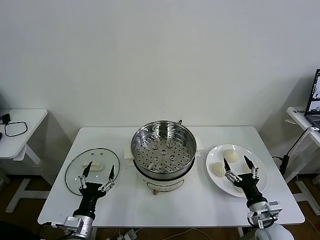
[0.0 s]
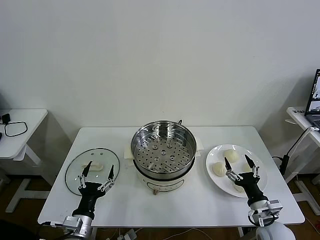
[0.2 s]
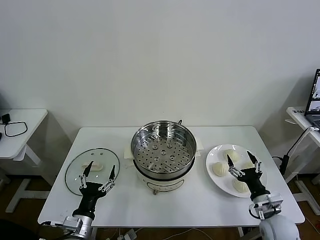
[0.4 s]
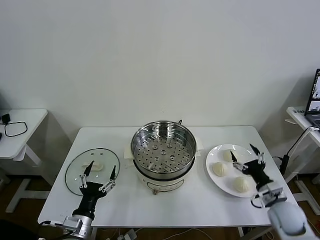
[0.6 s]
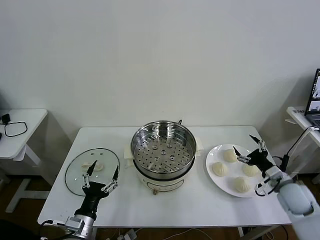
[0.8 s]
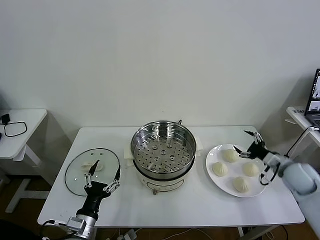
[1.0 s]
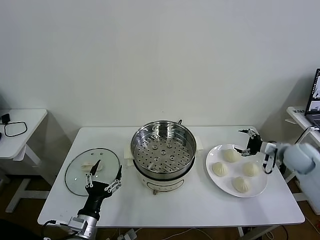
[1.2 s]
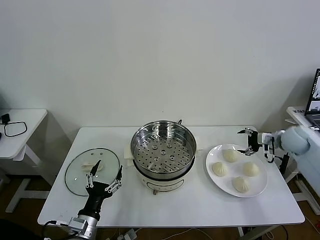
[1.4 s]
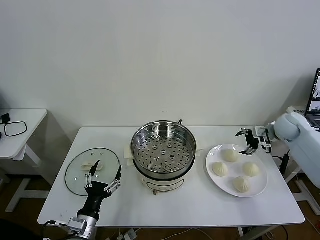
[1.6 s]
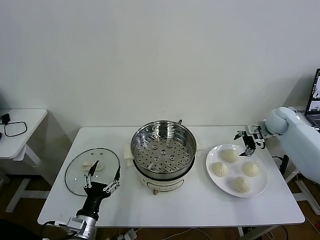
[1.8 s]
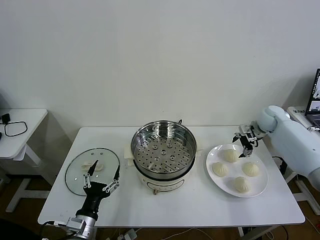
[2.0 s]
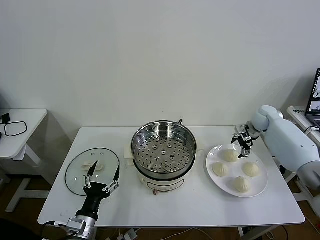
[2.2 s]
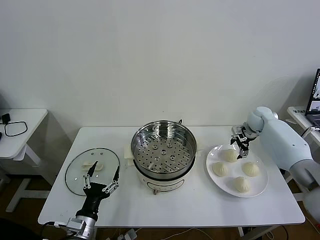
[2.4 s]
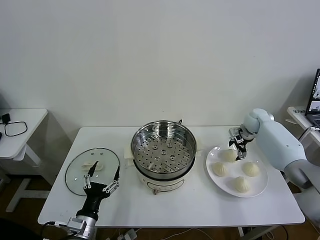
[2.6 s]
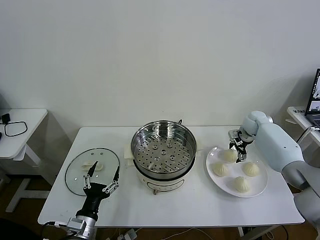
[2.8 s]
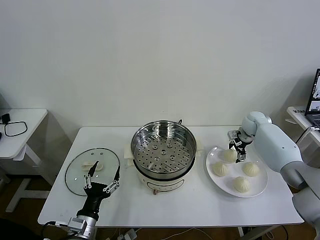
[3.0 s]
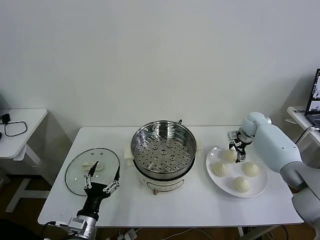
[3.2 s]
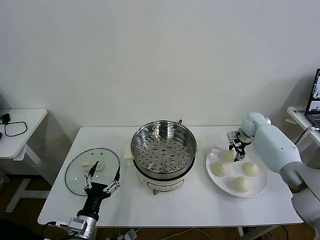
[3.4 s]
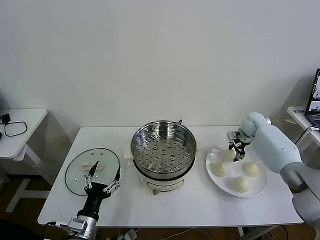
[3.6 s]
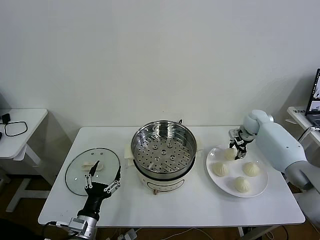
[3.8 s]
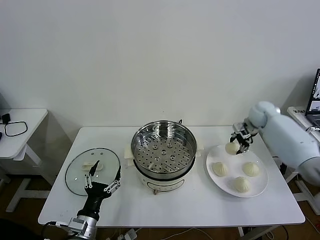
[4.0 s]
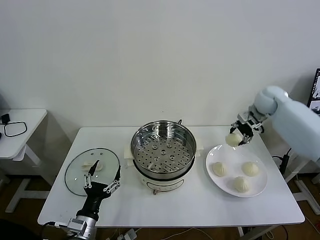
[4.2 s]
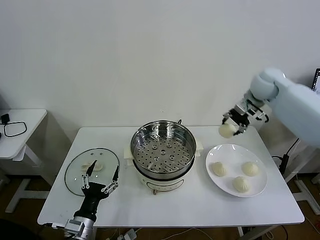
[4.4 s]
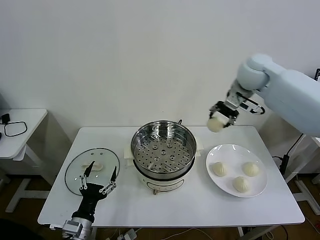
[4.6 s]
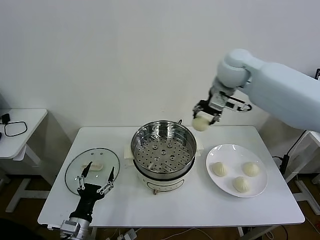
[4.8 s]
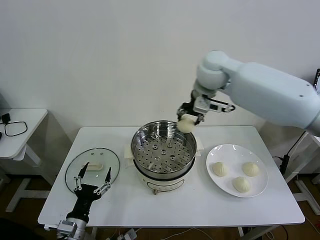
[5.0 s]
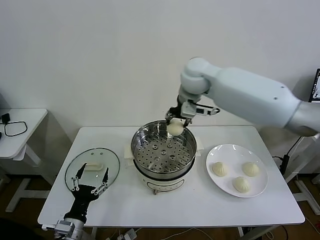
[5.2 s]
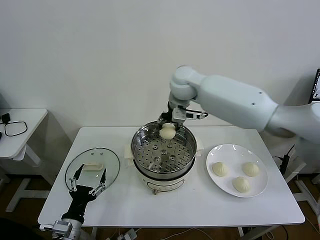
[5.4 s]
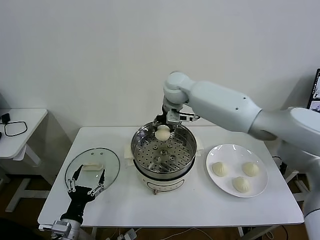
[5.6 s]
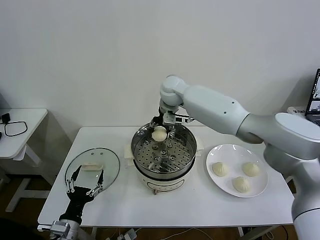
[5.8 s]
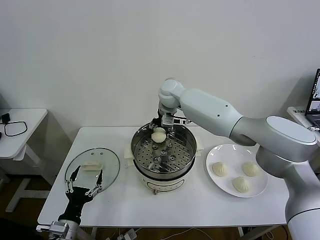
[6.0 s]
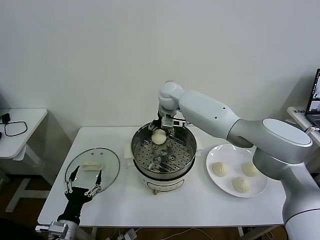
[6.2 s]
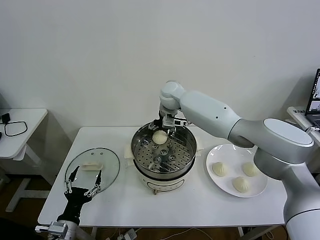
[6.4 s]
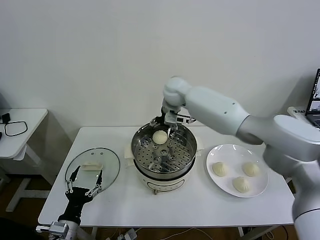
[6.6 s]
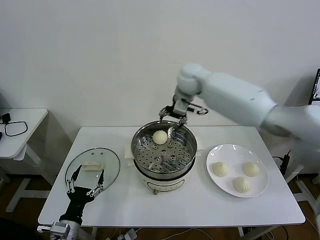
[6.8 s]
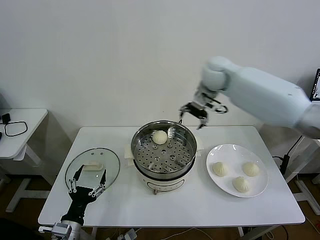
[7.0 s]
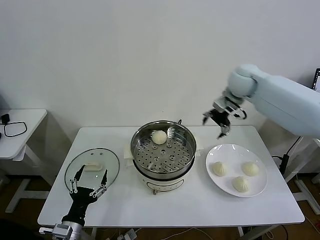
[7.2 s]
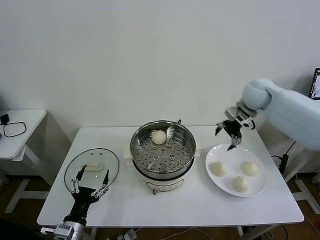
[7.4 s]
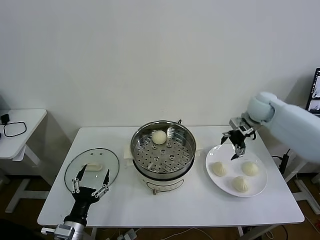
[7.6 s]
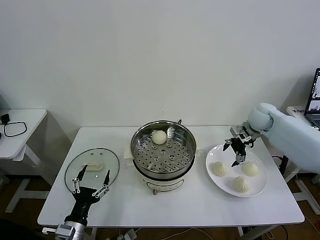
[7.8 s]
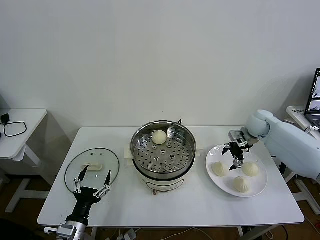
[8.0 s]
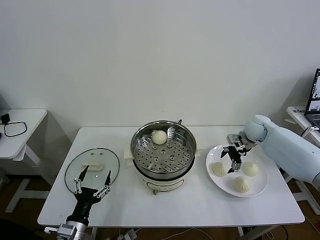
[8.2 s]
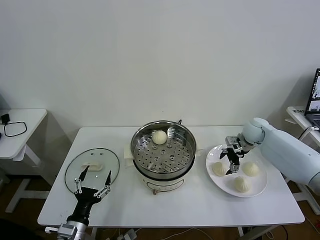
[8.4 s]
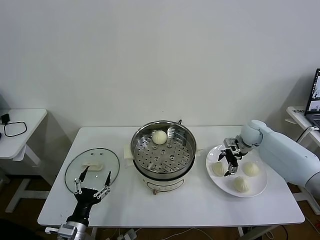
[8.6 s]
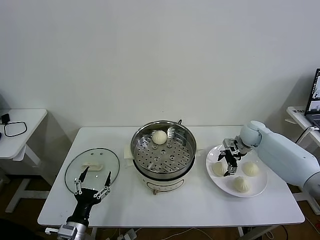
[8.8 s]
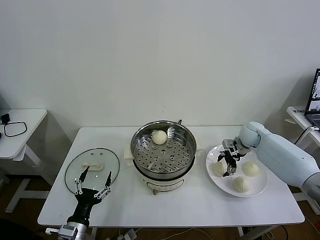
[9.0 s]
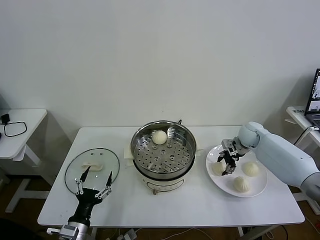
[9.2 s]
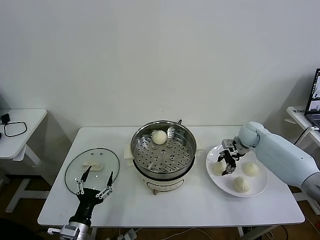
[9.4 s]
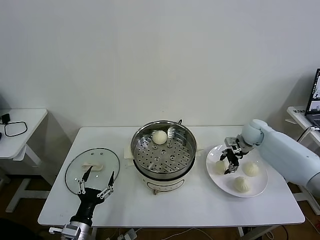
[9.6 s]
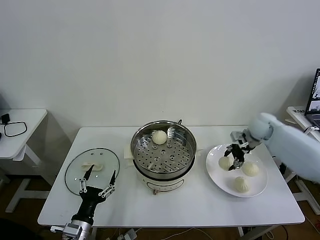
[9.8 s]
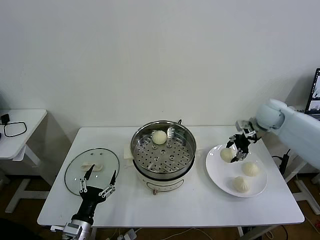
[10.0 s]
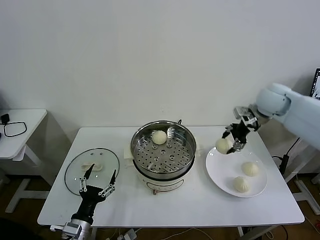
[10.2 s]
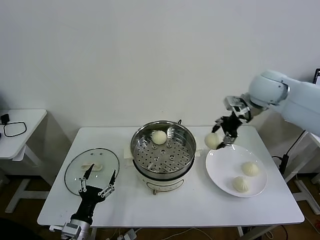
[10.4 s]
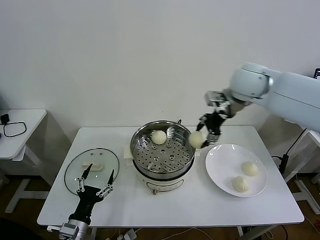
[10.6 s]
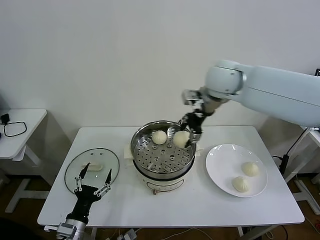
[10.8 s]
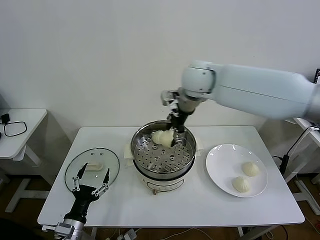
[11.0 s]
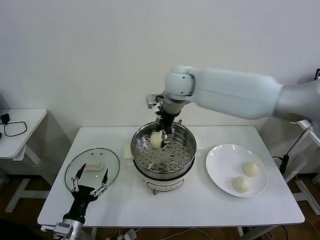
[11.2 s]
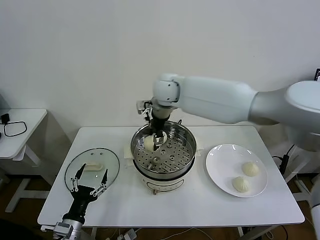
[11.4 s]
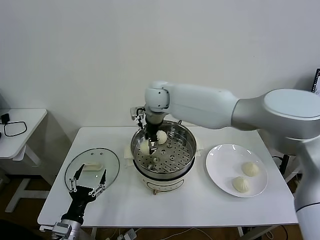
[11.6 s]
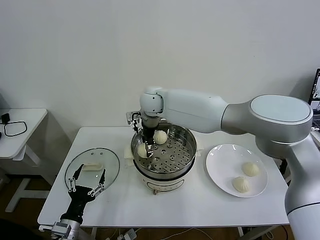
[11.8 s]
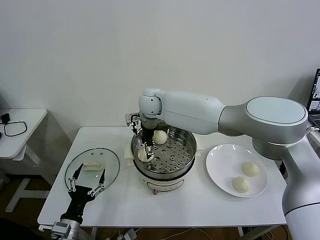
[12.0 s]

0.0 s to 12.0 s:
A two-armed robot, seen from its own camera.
Task of the whole recording: take steamed baozi put them in steamer then cover it.
Step, 0.0 to 3.4 s: Grasp the baozi in the plate with right gripper.
Step, 3.6 to 6.2 s: Place the baozi on the steamer with right gripper.
Step, 6.6 to 9.2 s: Grasp the baozi in the plate with right gripper.
1.6 to 3.0 s: The right gripper shifts roughly 10 cm forward, downward and to the left.
3.0 to 4.4 s: The right gripper goes roughly 20 cm upward, and closes up.
4.4 to 6.0 s: The right gripper shifts about 30 cm to the left.
6.0 to 7.6 s: The right gripper goes some 30 cm to the right, and opens.
7.6 to 9.0 s: The right gripper shifts some 15 cm downward.
9.0 to 10.4 s: The right gripper shifts some 25 cm upward, and closes.
10.4 to 12.0 s: The right gripper moves to the left, about 30 cm, and opens.

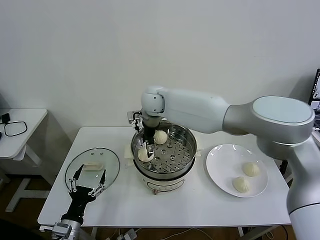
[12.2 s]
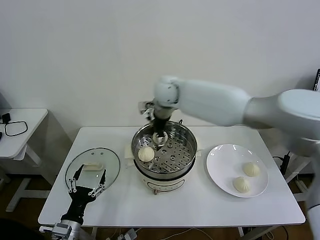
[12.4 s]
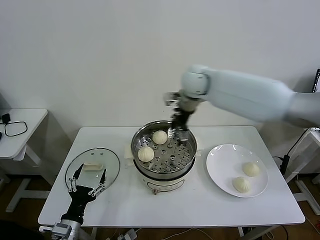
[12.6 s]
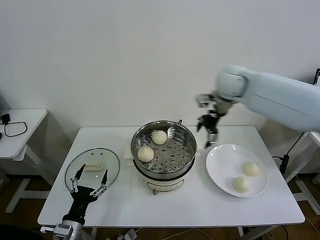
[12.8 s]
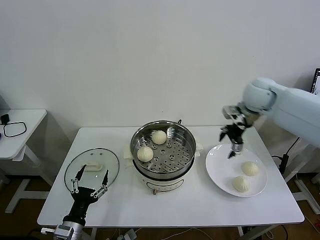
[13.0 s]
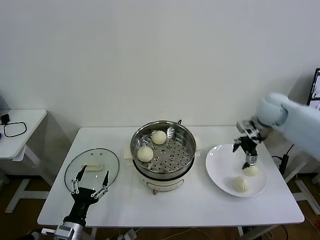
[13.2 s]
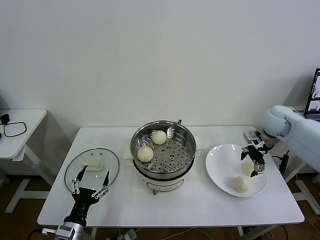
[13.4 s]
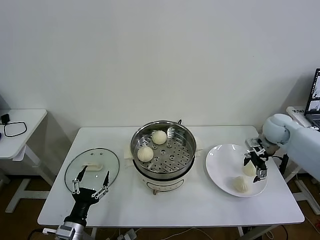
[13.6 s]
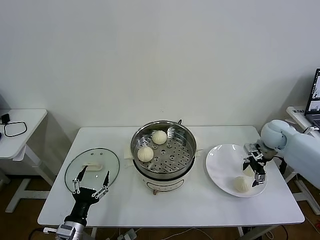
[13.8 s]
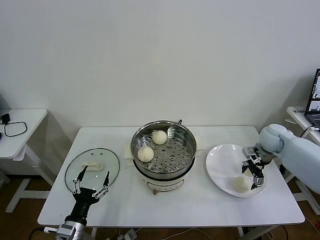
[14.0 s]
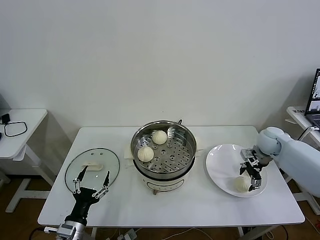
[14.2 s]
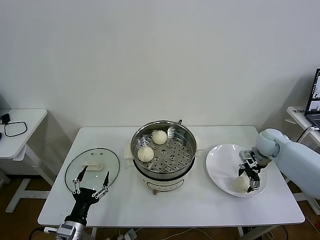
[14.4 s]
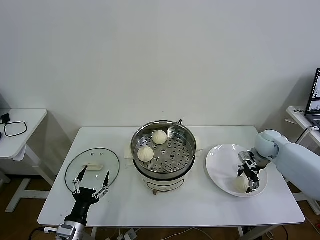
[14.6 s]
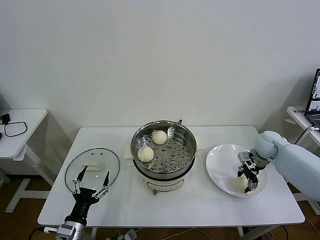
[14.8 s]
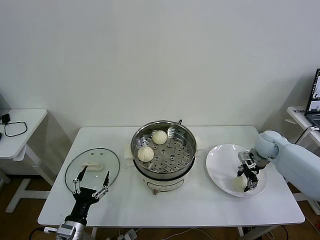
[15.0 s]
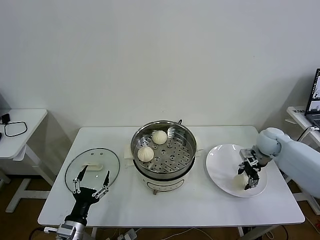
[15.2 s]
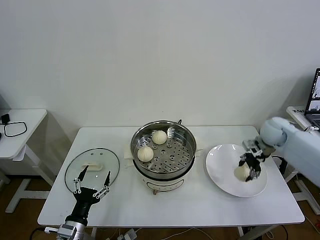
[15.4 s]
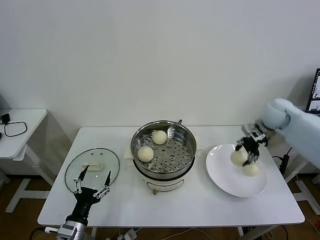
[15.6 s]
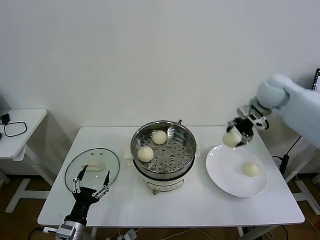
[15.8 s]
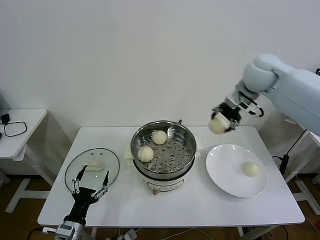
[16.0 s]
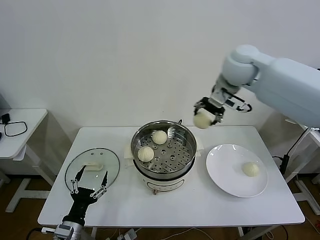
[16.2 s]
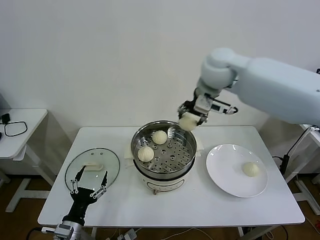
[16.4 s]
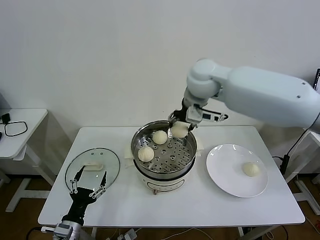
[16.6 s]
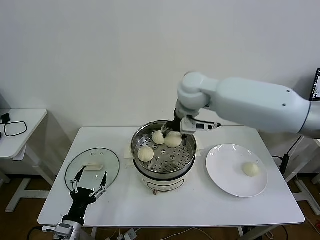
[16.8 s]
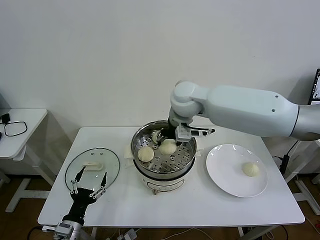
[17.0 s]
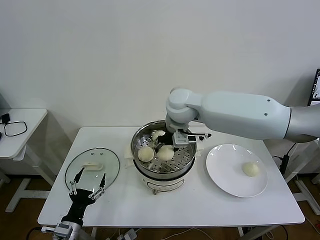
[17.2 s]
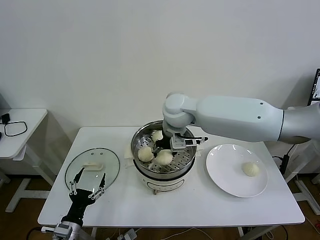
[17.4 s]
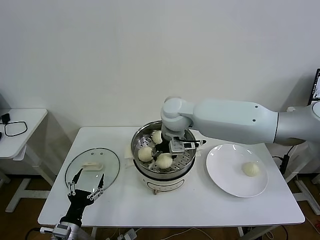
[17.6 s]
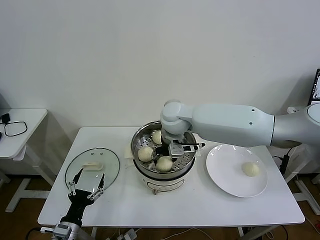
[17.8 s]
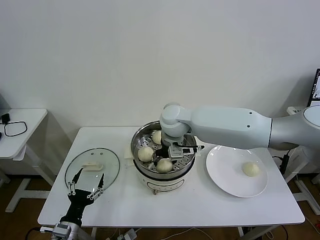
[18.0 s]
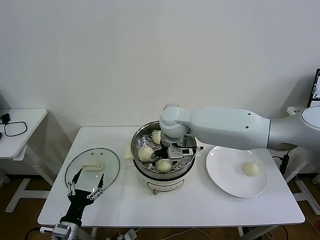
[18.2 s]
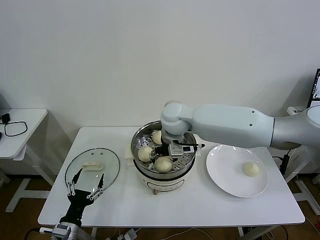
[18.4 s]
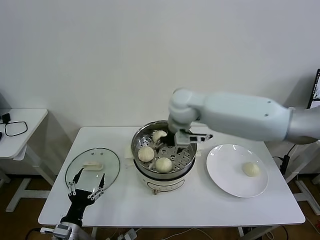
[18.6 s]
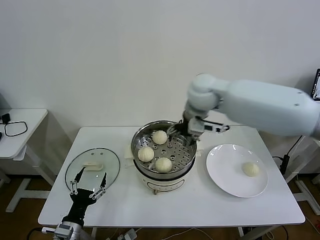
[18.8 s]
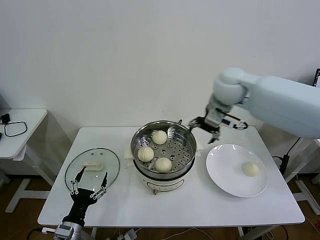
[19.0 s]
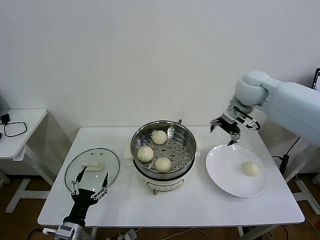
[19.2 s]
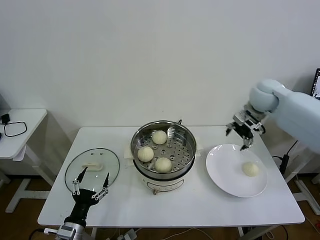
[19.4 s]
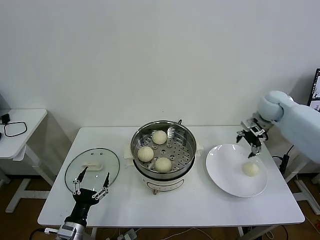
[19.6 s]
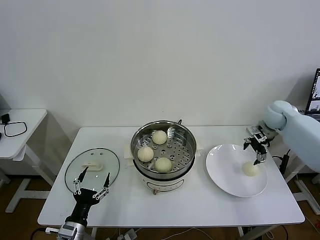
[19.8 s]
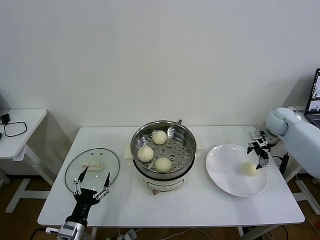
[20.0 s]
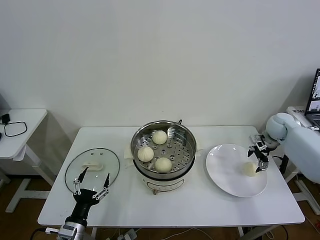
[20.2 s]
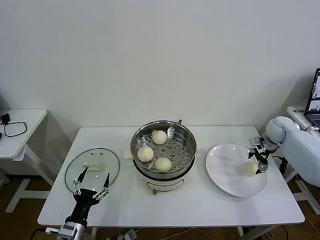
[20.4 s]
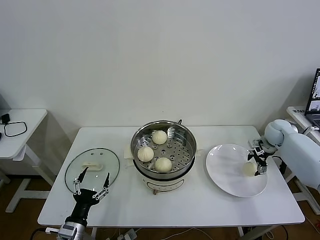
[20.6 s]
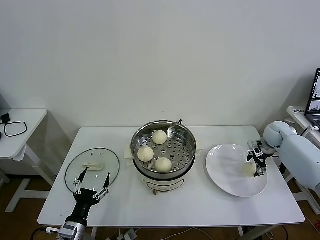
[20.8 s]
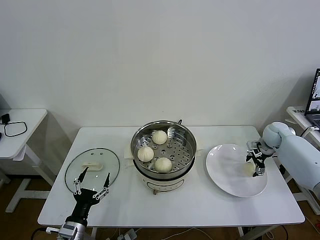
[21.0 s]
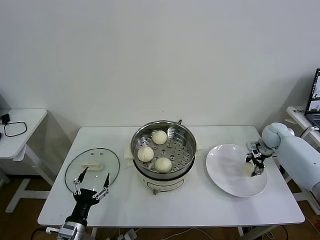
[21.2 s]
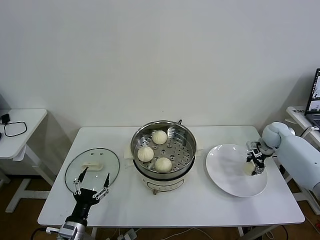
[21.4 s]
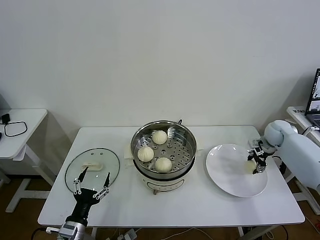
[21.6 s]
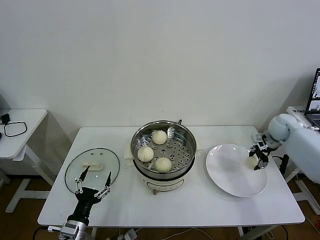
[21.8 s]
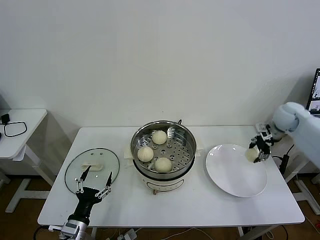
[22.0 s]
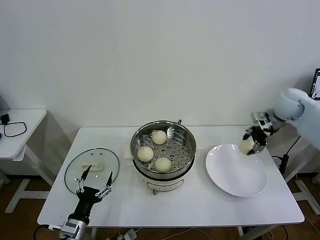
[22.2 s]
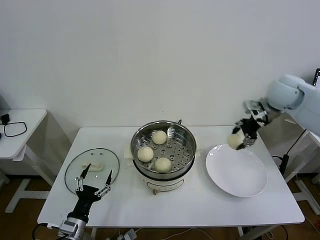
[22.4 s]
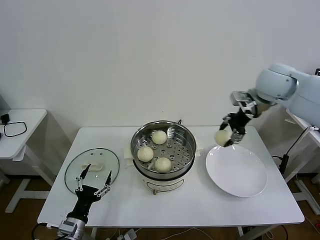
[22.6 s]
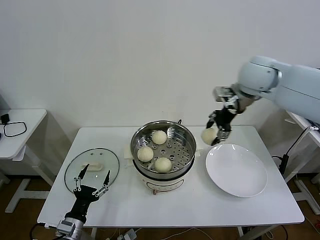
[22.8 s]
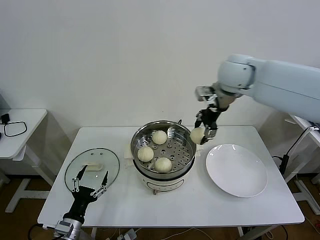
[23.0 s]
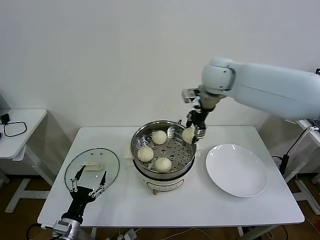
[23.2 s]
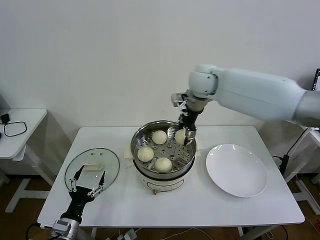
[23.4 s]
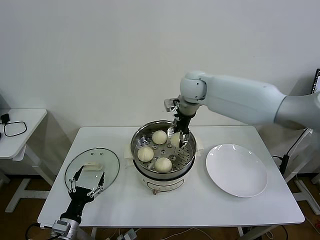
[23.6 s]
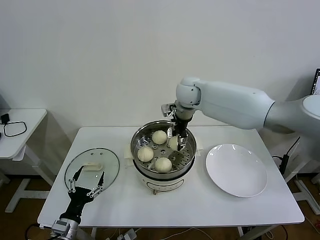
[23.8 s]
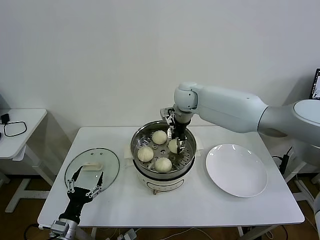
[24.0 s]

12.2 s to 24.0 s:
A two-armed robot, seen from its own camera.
Task of the whole recording: take steamed baozi put them in steamer then cover it.
Step, 12.2 to 14.8 s: Grasp the baozi in the plate with right gripper.
Step, 15.0 to 18.2 s: Place the baozi on the steamer with right gripper.
Step, 18.4 to 21.2 s: Grasp the baozi in the plate with right gripper.
12.2 to 13.6 s: The right gripper is displaced to the right by roughly 40 cm.
13.6 to 15.2 s: The right gripper moves downward, roughly 5 cm, and closes up.
15.2 to 16.6 s: The right gripper moves to the left and upward, approximately 40 cm.
16.6 to 18.2 s: The right gripper travels downward and to the left by some 15 cm, and opens.
18.2 to 19.6 s: The right gripper shifts some 35 cm to the right.
19.6 to 21.0 s: The right gripper is displaced downward and to the right by some 15 cm.
21.0 to 22.6 s: The right gripper is displaced upward and to the left by about 30 cm, and closes.
22.6 to 24.0 s: The right gripper heads to the left and downward, covering some 25 cm.
